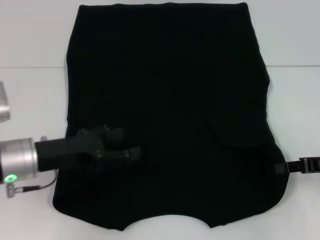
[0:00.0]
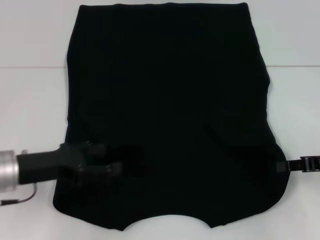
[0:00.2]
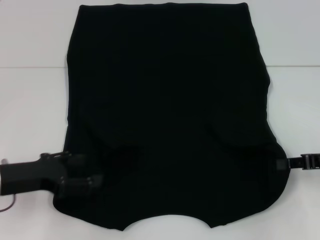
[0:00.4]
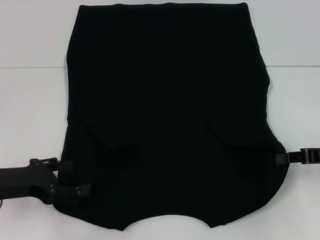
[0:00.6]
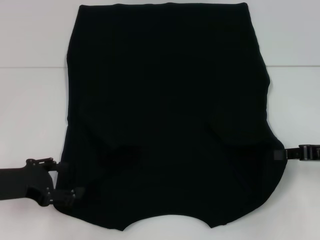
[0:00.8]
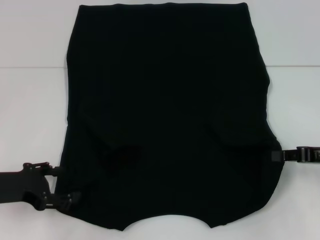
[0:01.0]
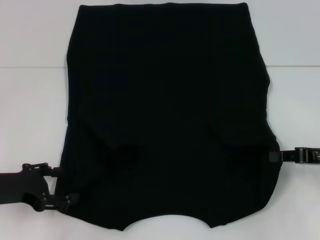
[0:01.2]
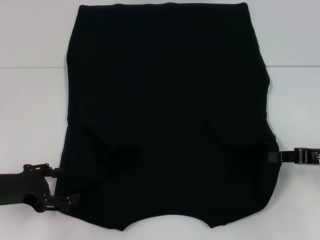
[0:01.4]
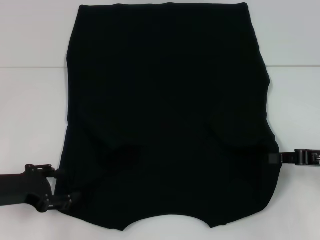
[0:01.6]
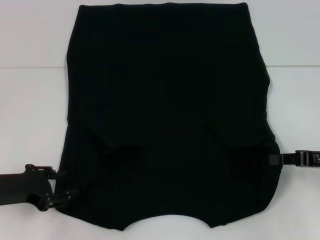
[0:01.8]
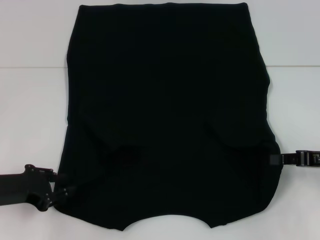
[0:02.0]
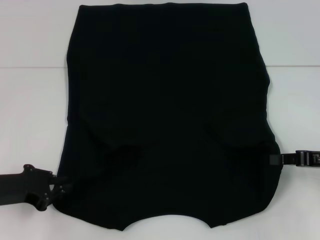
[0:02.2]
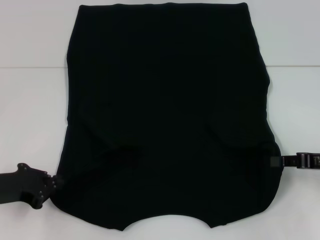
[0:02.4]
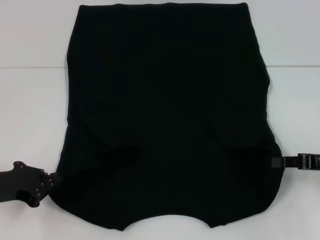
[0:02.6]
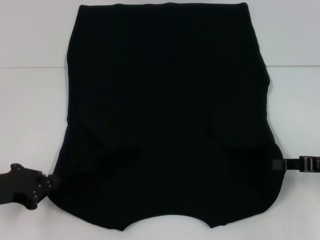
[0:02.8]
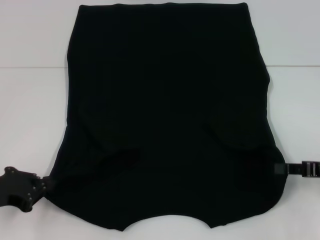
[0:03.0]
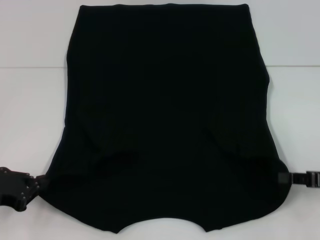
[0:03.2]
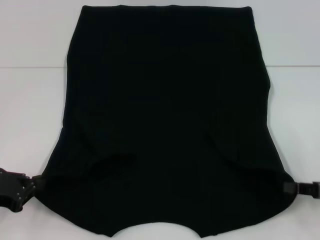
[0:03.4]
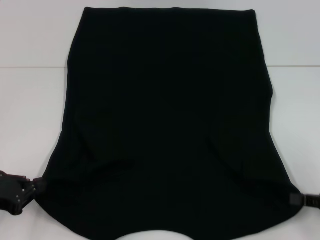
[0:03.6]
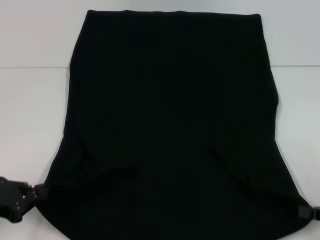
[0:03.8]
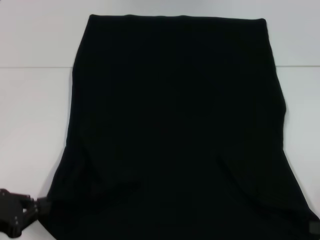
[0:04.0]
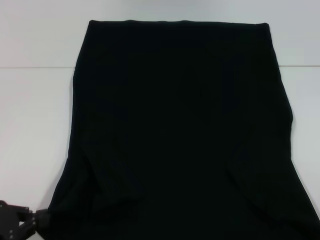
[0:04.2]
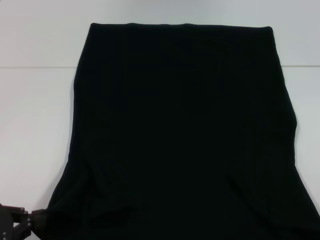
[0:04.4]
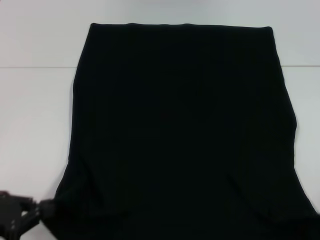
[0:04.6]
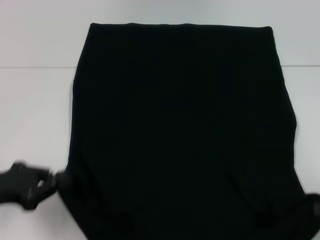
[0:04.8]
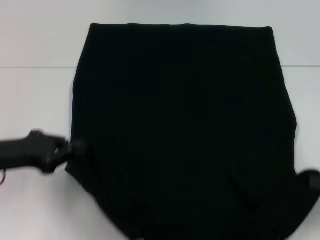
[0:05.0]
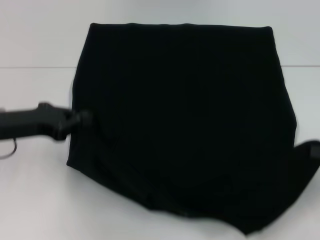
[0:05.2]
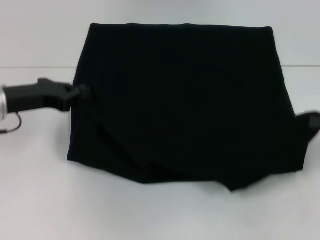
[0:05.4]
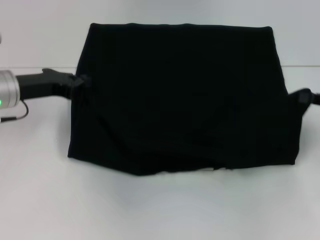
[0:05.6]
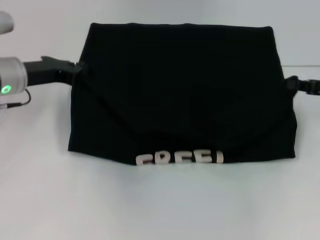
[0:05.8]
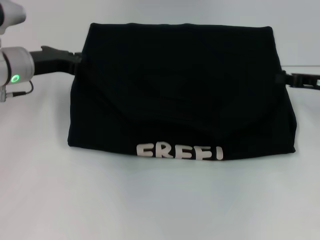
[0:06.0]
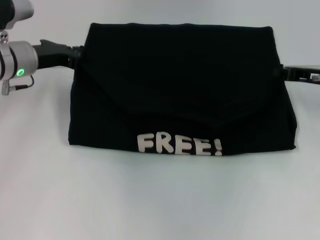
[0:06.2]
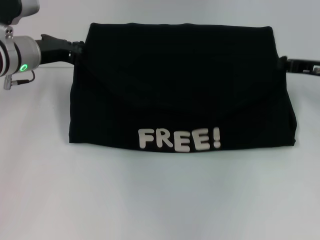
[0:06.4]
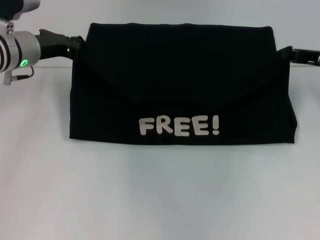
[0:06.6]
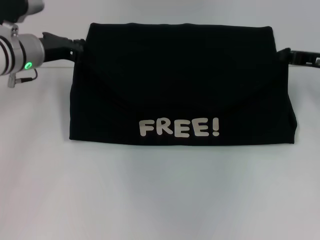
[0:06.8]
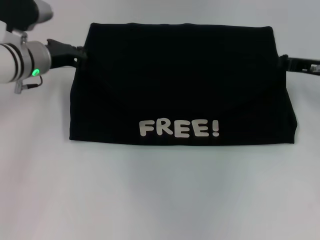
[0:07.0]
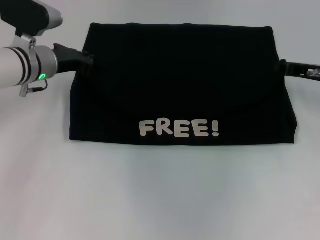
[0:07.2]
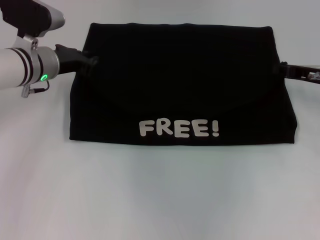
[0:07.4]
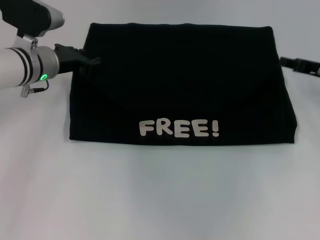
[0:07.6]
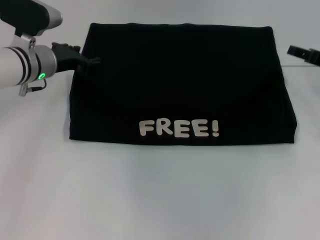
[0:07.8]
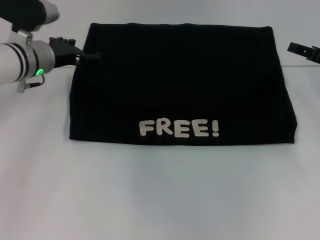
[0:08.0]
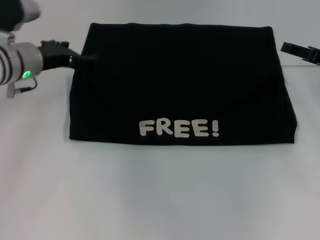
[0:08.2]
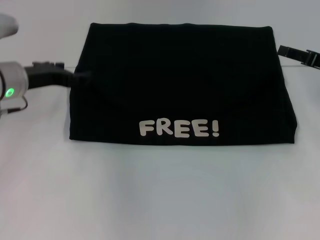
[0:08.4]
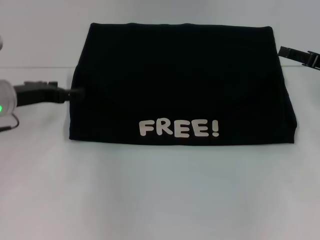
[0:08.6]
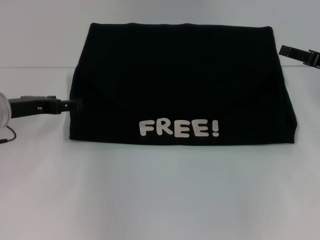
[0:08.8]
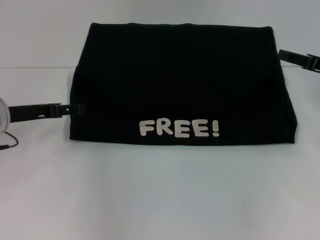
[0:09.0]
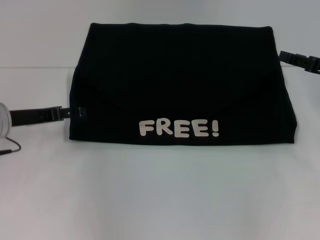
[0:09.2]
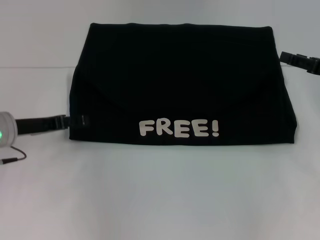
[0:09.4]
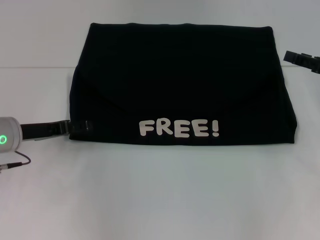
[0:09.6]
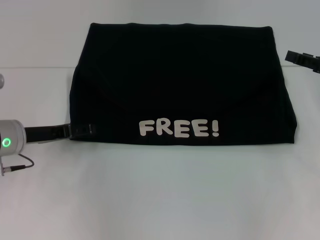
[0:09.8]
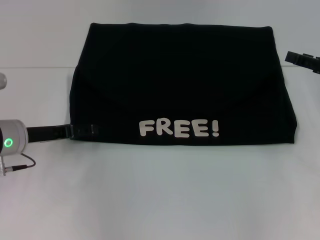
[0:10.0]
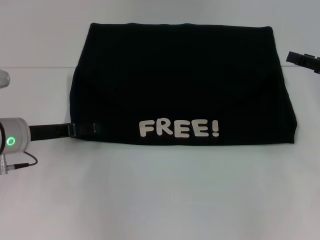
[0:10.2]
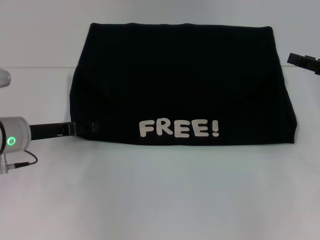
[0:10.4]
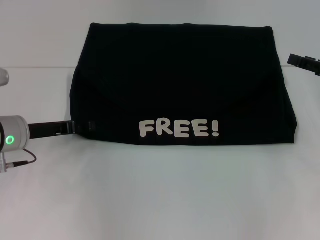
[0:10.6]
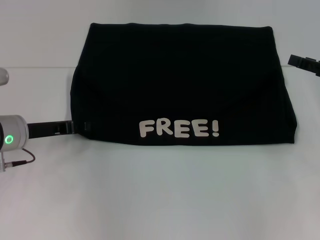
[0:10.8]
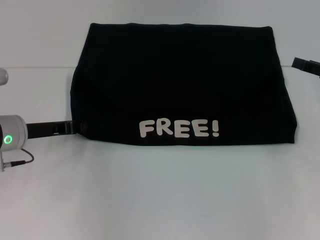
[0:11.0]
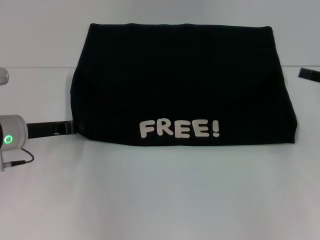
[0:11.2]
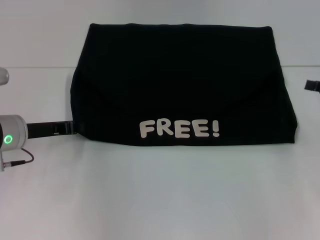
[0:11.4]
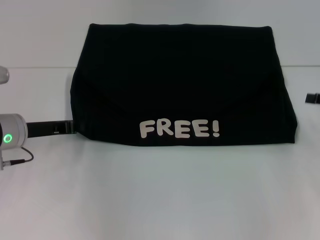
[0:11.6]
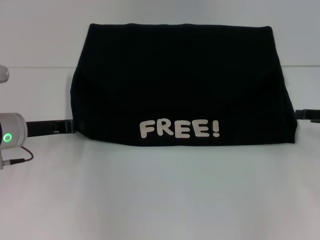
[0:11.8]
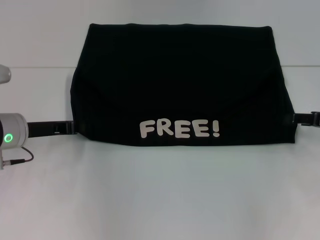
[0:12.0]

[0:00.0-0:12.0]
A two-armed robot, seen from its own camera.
Step, 0.6 to 3.2 s: Grab the bottom left corner with your left hand.
Step, 3.4 to 7.8 s: Fold the clothes with your left hand.
Step, 3.4 to 7.8 s: Fold the clothes with your right hand.
0.0 to 1.6 s: The left gripper goes about 5 cm to the left.
1.6 to 3.0 s: The left gripper closes.
3.0 to 4.4 s: The right gripper moves backward and to the right, roughly 15 cm; the left gripper heads backward, covering approximately 5 cm.
4.4 to 6.0 s: Both grippers move forward, roughly 25 cm.
6.0 to 7.6 s: There are only small adjustments of the grippers.
7.6 to 9.0 s: The left gripper travels backward and to the left by some 10 cm, and opens up. Meanwhile the right gripper opens.
9.0 to 10.4 s: The grippers stay close to where they were, moving slightly.
10.4 to 12.0 s: The left gripper closes.

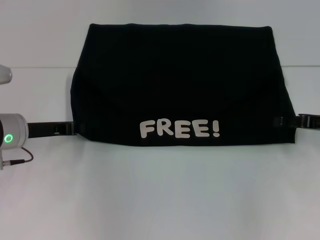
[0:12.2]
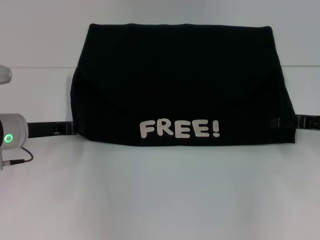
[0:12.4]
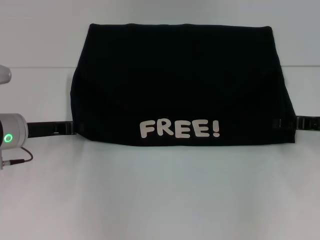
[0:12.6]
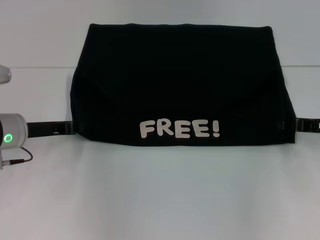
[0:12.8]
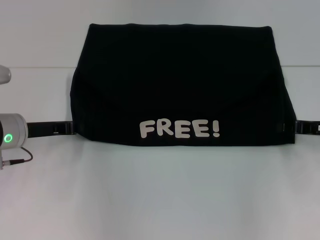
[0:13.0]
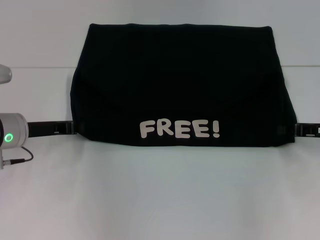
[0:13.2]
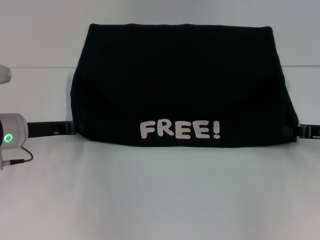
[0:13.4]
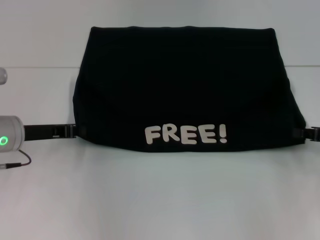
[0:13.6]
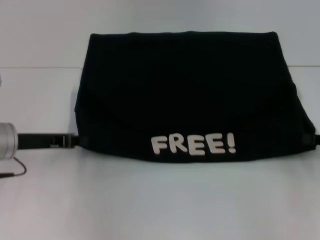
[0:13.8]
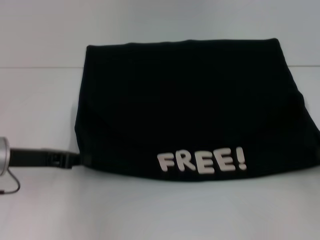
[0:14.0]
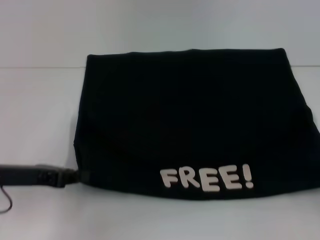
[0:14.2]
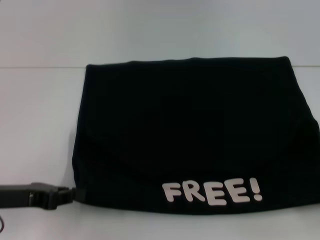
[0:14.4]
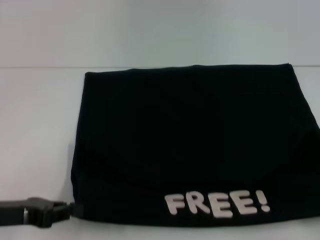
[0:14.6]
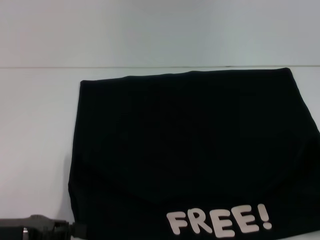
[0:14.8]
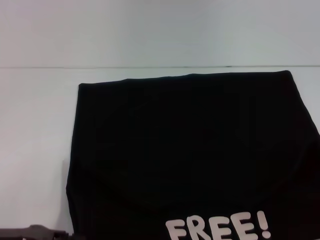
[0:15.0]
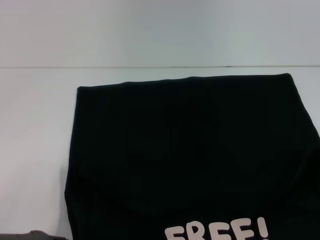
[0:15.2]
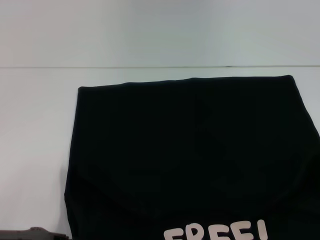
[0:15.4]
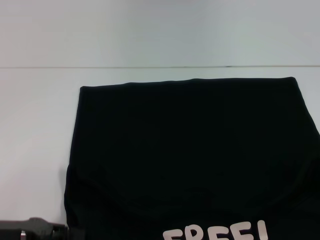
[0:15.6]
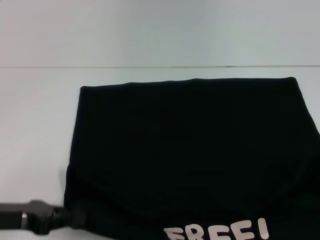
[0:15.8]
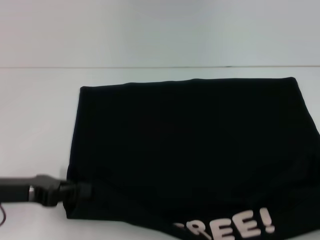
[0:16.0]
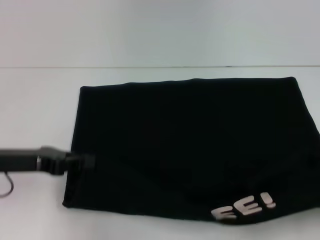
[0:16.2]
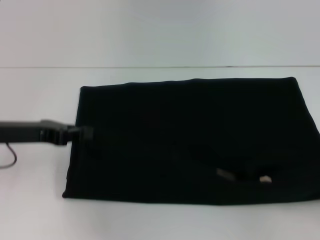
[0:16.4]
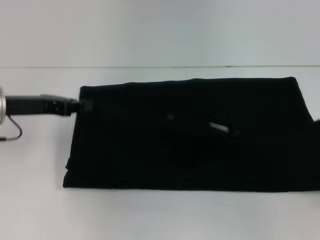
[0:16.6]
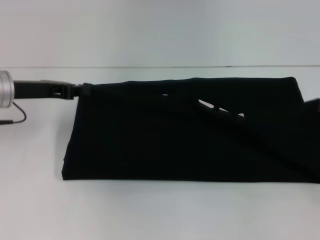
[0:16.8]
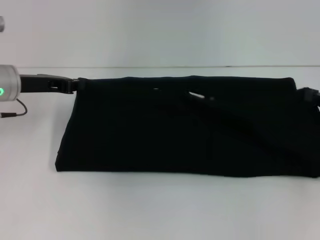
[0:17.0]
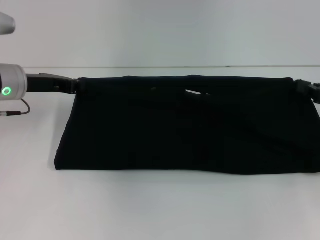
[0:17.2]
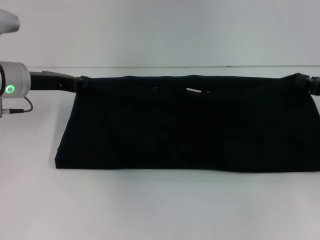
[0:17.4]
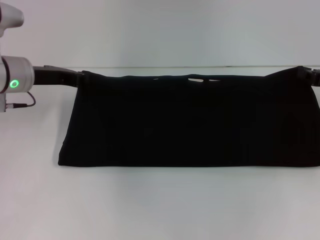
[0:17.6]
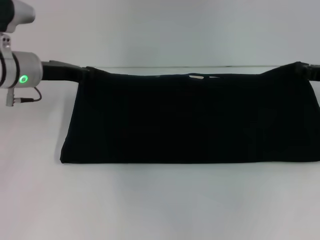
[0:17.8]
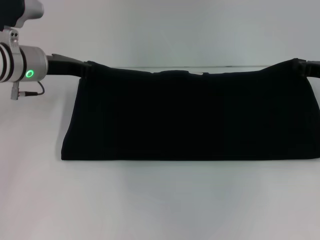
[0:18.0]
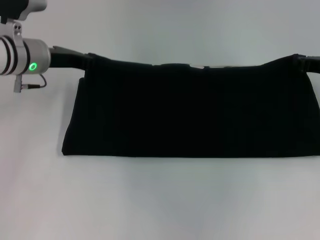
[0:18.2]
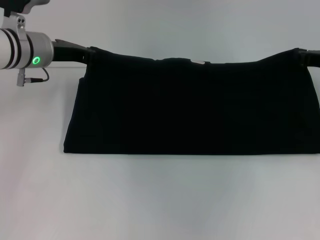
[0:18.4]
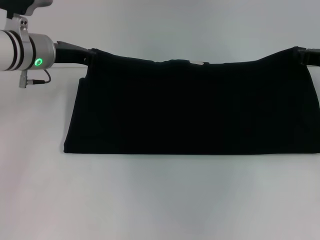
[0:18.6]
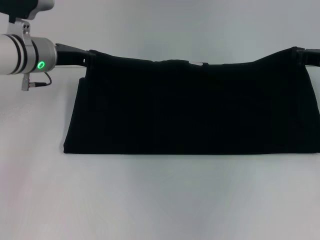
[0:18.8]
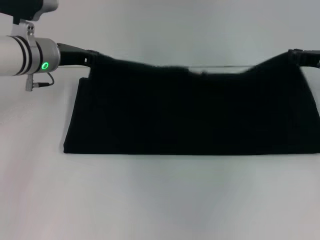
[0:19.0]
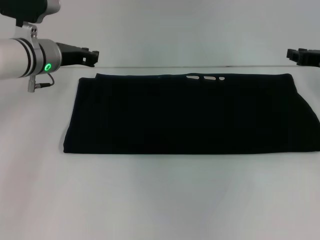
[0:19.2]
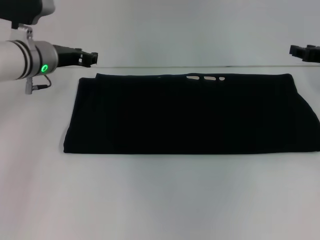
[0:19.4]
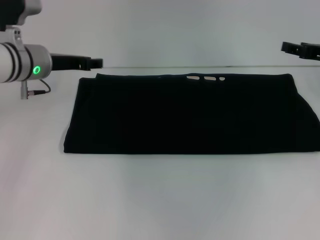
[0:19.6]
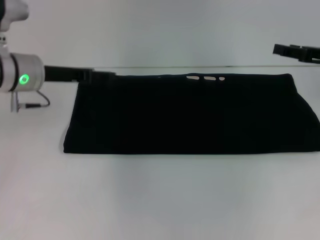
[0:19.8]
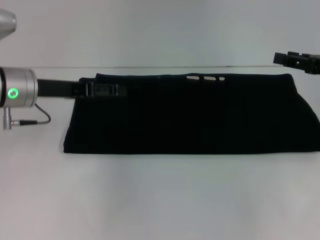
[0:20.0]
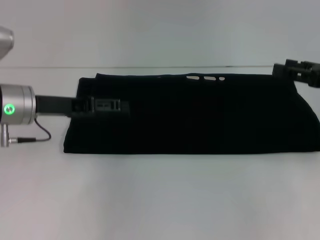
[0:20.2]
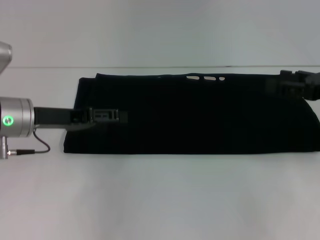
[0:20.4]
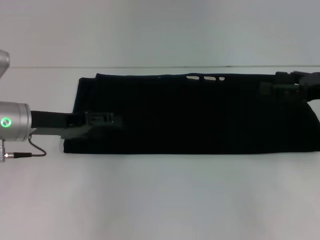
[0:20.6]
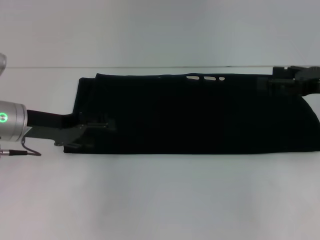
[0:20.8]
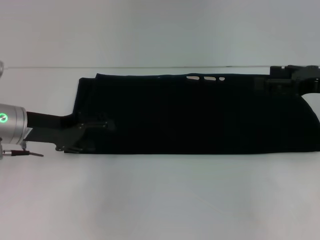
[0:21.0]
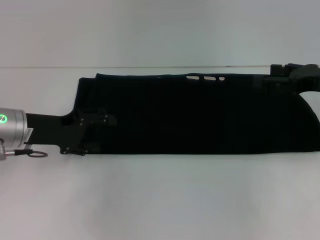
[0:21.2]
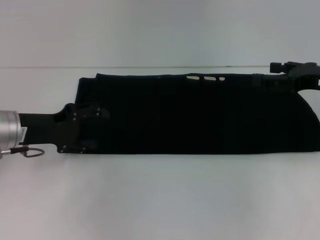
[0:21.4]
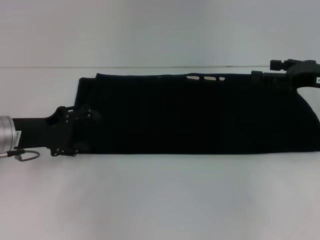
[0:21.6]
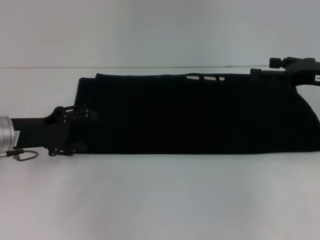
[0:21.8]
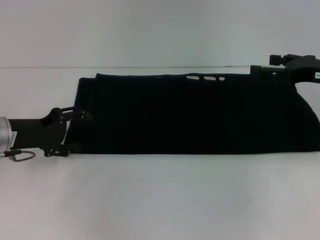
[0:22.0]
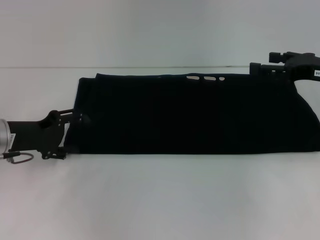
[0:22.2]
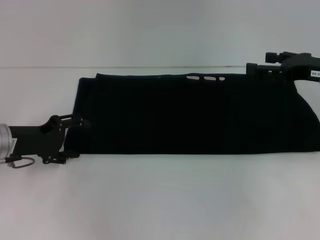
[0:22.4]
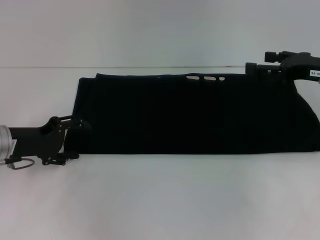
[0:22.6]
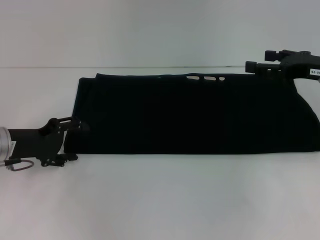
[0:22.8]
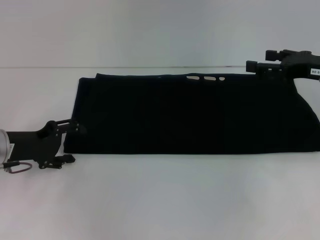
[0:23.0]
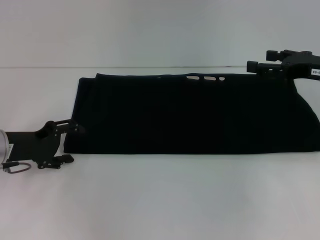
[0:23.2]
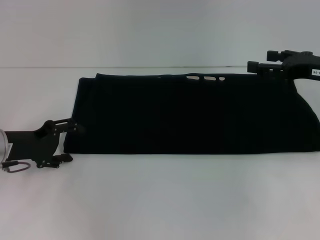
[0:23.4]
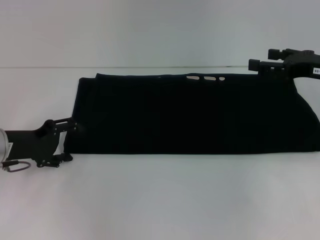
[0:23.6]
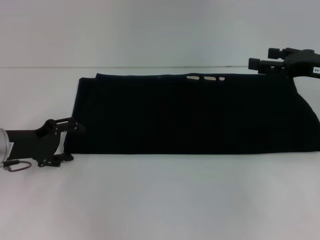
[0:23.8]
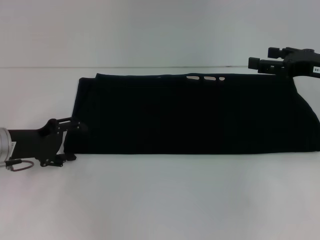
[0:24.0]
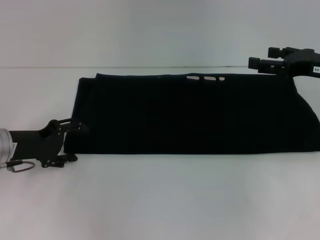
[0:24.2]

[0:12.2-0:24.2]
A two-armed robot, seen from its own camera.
Step, 12.2 to 15.4 s: Pull the clothes with your left hand.
Step, 12.2 to 15.4 s: Pull the clothes with your right hand.
Step, 15.6 to 19.4 s: Fold the clothes with your right hand.
12.2 to 13.8 s: The right gripper ends up about 5 cm from where it was, and closes up.
13.8 to 15.2 s: The two grippers go roughly 15 cm backward.
15.2 to 16.6 s: The left gripper heads forward and upward, covering approximately 15 cm. The right gripper shifts roughly 10 cm forward.
16.6 to 18.2 s: The right gripper travels forward and to the left by about 20 cm. Meanwhile the left gripper travels forward and to the right by approximately 10 cm.
18.2 to 19.8 s: The right gripper opens its fingers; the left gripper opens up.
19.8 to 21.2 s: The left gripper is displaced backward by about 5 cm.
21.2 to 22.6 s: The grippers stay close to where they were, moving slightly.
22.6 to 24.2 s: The two grippers keep their place.
